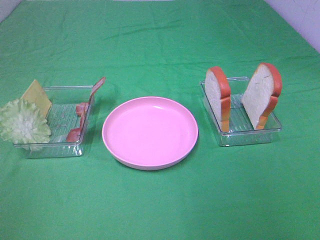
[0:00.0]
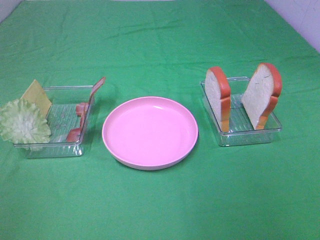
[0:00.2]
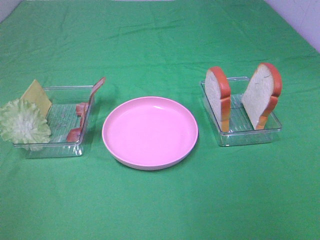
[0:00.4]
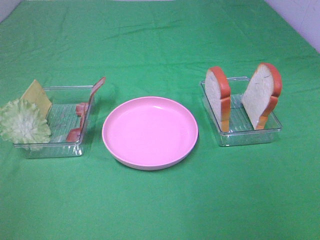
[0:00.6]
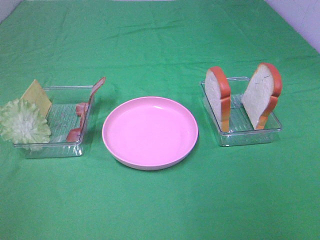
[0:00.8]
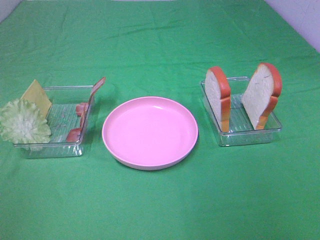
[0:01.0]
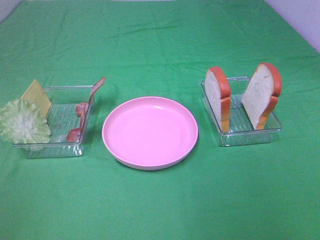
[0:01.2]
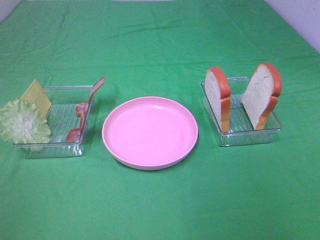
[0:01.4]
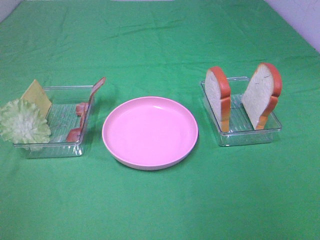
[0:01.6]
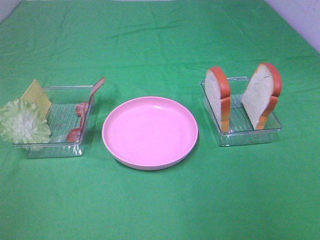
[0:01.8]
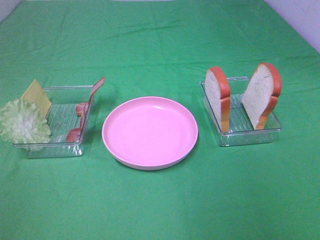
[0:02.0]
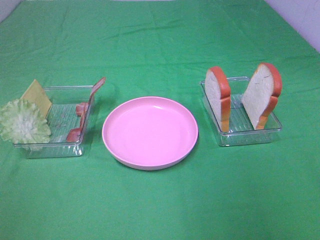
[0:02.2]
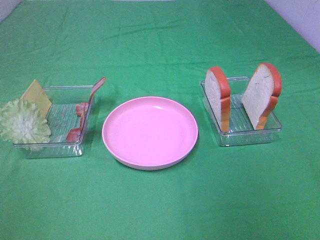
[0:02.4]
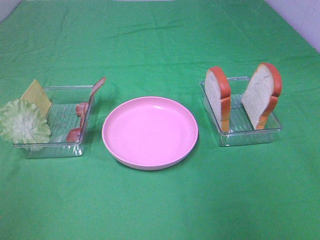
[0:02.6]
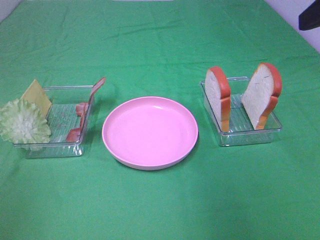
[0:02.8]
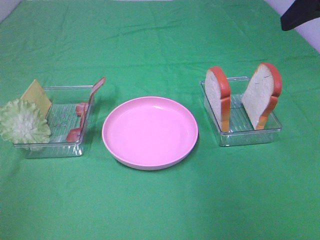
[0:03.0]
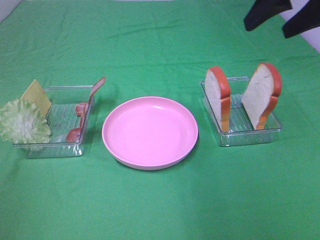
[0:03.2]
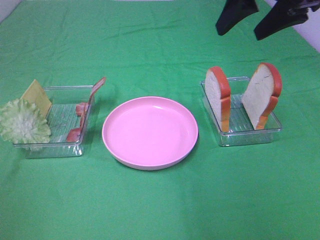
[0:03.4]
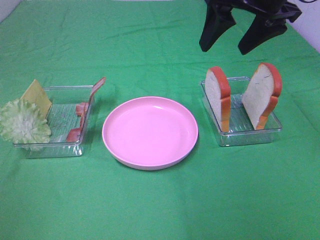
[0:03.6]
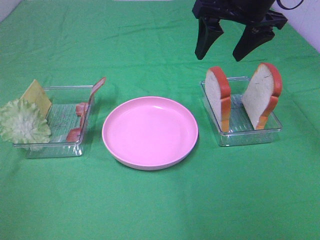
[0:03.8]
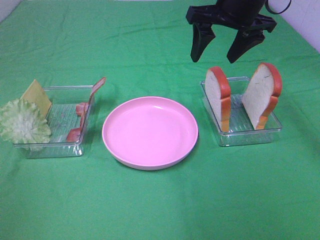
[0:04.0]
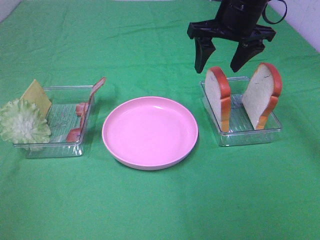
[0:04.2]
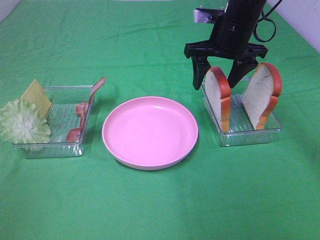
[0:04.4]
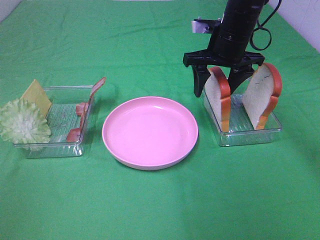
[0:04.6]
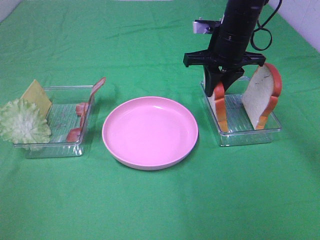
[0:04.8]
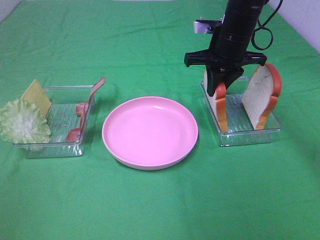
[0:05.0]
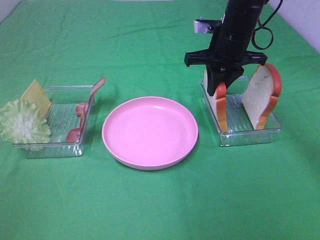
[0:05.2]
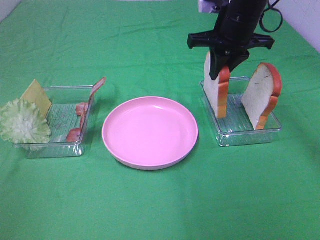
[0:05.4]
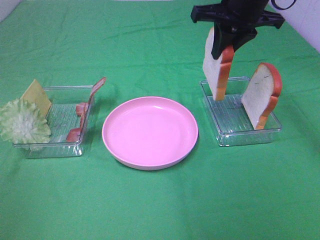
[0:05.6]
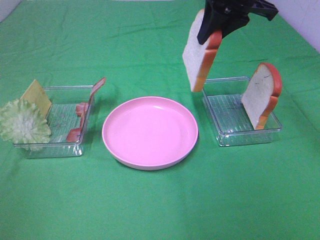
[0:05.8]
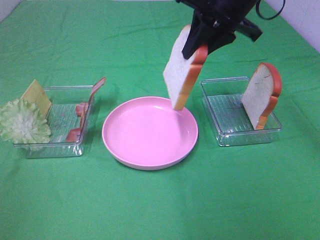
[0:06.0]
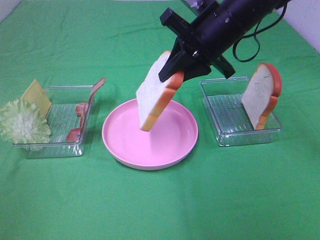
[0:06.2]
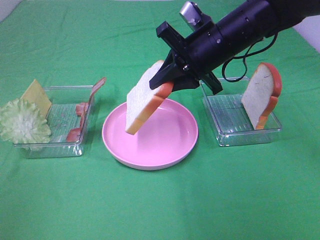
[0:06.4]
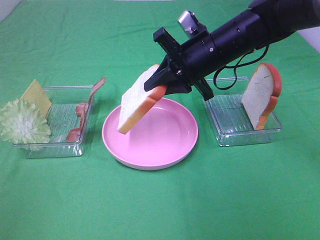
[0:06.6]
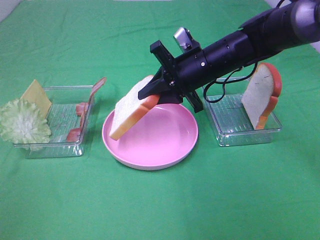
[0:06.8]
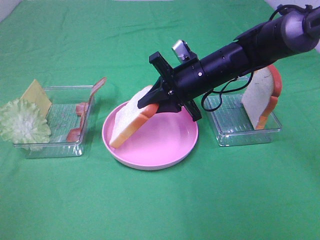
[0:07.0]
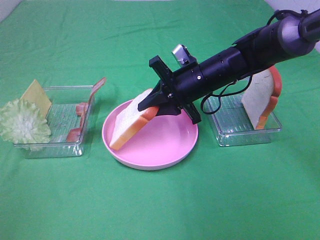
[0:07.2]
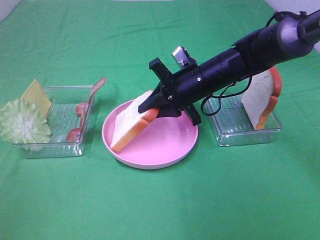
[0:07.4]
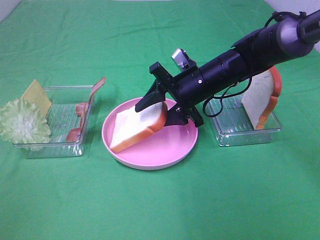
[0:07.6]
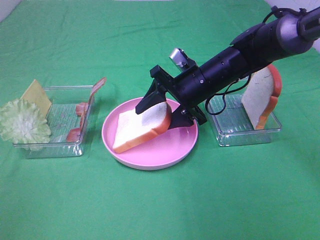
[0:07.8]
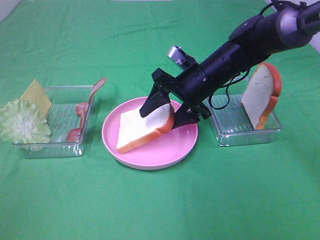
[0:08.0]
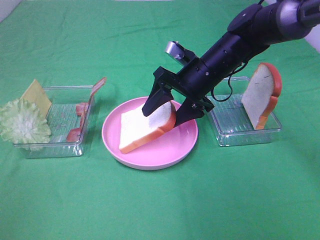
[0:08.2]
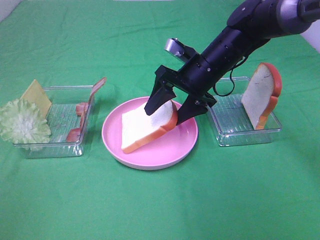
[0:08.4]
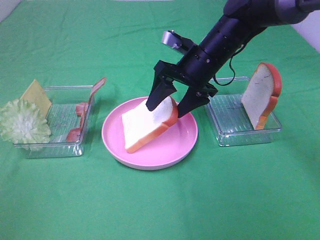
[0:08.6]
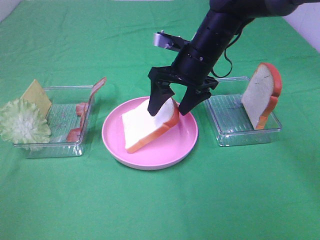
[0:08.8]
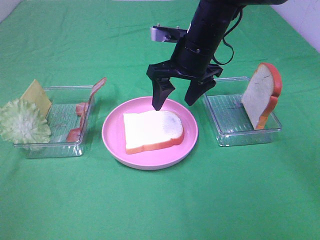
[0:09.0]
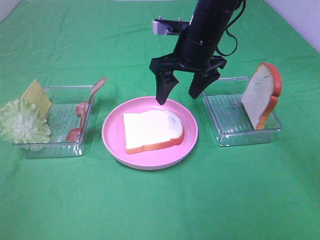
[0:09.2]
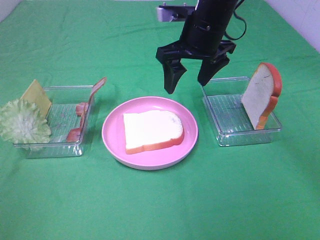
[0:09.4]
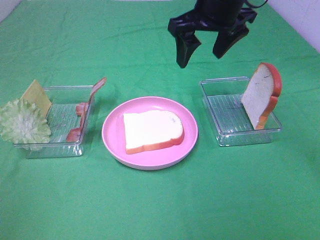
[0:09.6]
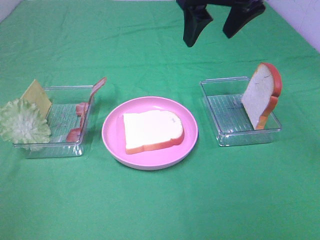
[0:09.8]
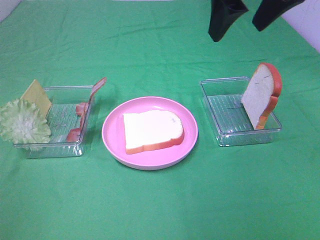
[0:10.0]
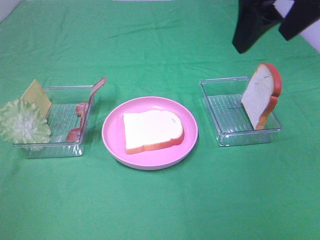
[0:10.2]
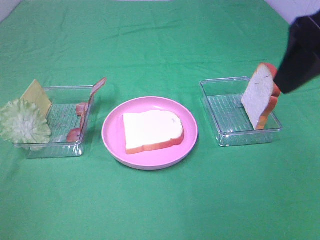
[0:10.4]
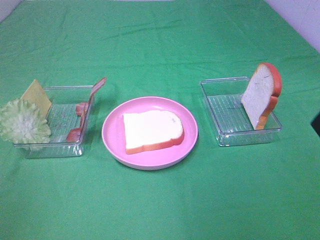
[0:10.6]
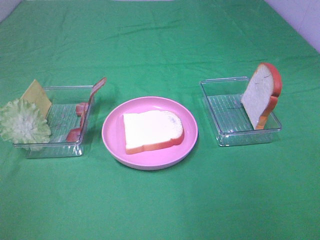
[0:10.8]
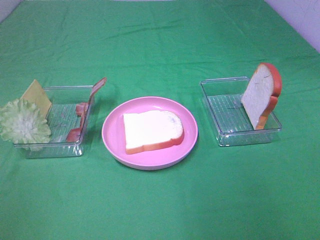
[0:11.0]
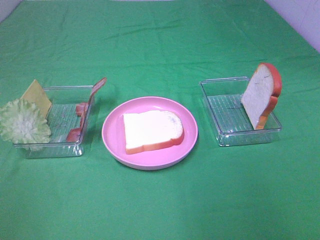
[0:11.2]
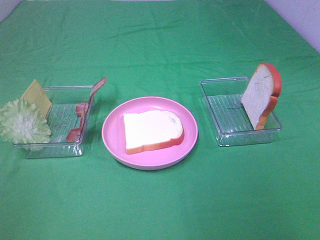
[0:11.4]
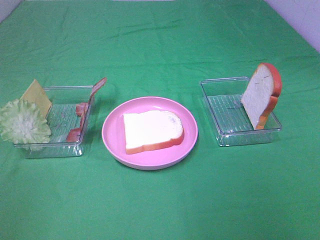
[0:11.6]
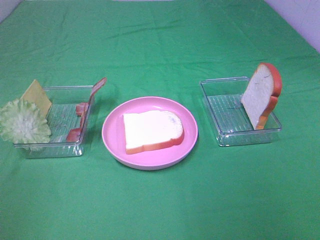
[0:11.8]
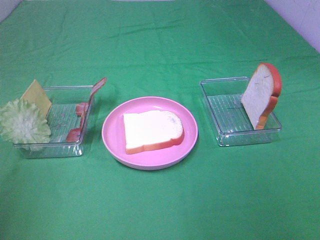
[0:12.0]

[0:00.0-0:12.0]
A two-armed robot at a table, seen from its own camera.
Task of the whole recording: Make sandwiches.
Step, 0:00.0 to 0:04.8: Right hand:grab the bread slice.
Step, 0:05.0 to 0:09.0: Right hand:place the bread slice on the plate.
0:00.0 to 0:01.6: Both grippers stay about where they are.
0:01.6 to 0:03.0: The right gripper moves forward, some 30 cm.
0:03.0 to 0:04.4: The right gripper goes some 25 cm forward, downward and to the left.
0:04.4 to 0:06.0: The right gripper is displaced upward by approximately 5 cm, and closes.
0:06.0 to 0:07.6: The right gripper goes about 15 cm downward, and opens its fingers.
0:07.6 to 0:09.0: The right gripper shifts roughly 10 cm upward.
0:09.0 to 0:10.4: The right gripper shifts roughly 30 cm backward, upward and to the right.
0:10.4 to 0:12.0: The right gripper moves backward, to the right and downward, about 20 cm; the left gripper moves forward, about 10 cm.

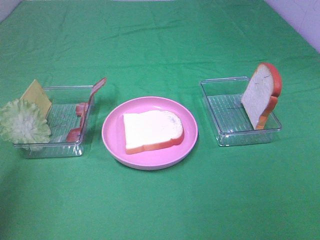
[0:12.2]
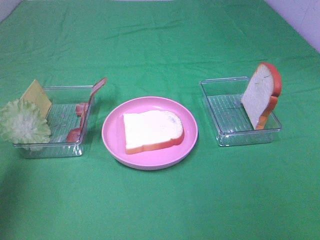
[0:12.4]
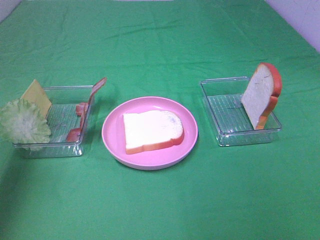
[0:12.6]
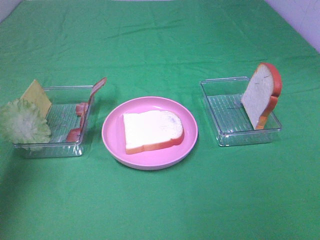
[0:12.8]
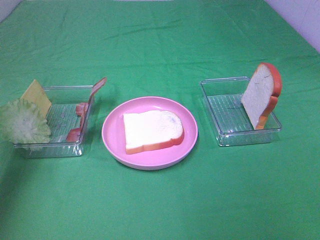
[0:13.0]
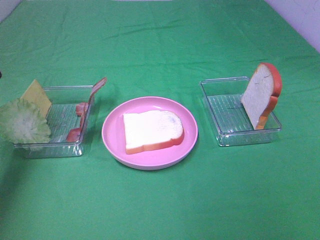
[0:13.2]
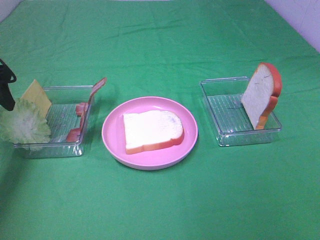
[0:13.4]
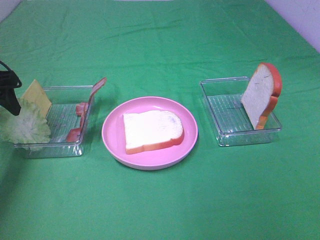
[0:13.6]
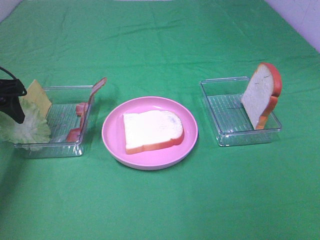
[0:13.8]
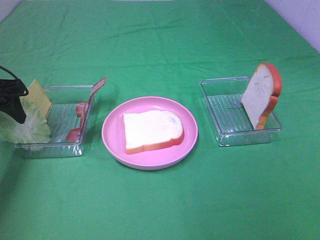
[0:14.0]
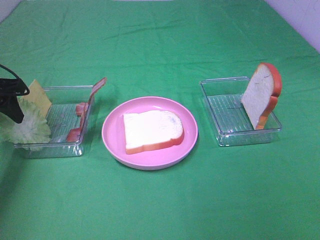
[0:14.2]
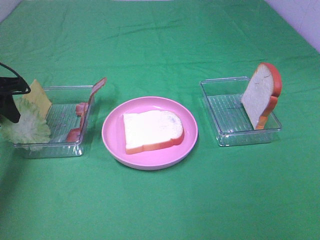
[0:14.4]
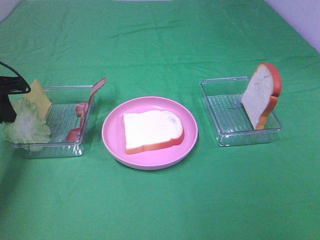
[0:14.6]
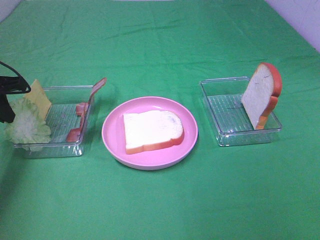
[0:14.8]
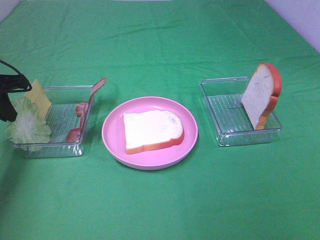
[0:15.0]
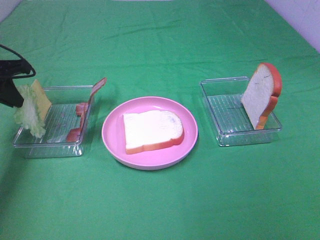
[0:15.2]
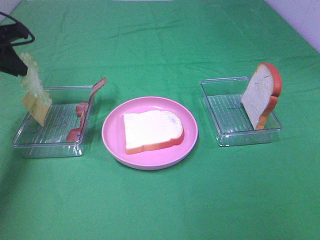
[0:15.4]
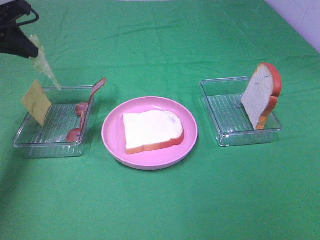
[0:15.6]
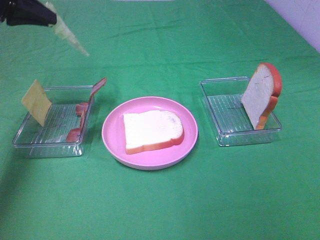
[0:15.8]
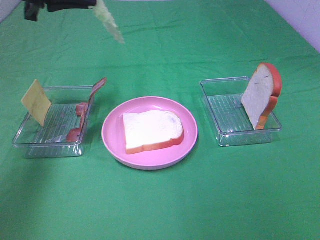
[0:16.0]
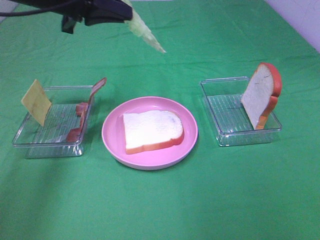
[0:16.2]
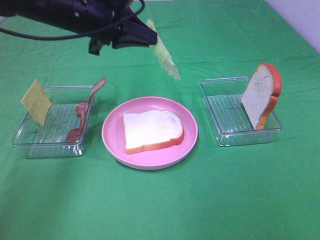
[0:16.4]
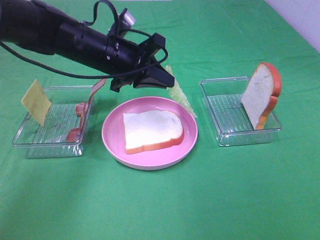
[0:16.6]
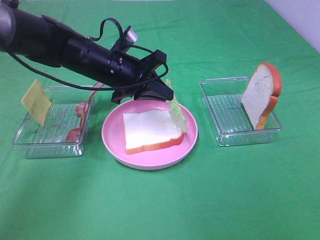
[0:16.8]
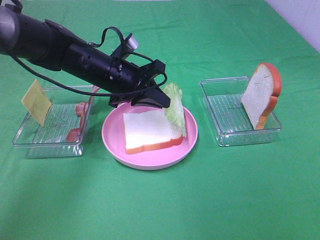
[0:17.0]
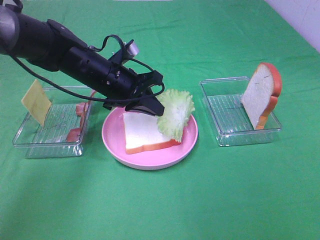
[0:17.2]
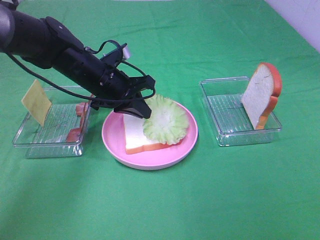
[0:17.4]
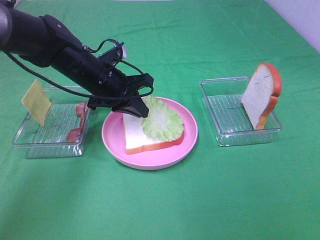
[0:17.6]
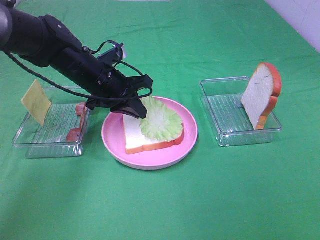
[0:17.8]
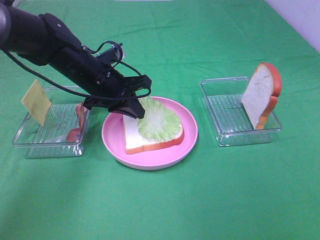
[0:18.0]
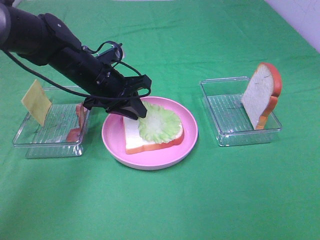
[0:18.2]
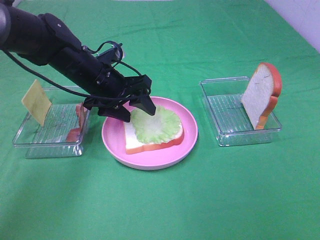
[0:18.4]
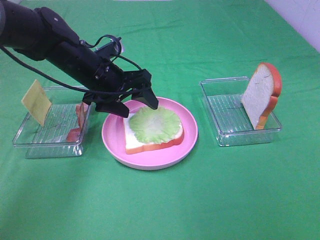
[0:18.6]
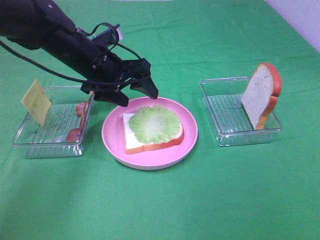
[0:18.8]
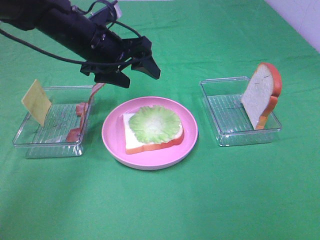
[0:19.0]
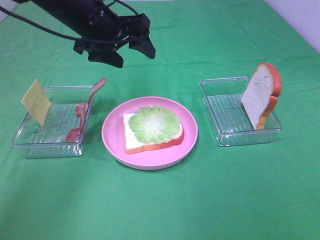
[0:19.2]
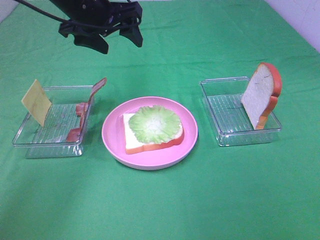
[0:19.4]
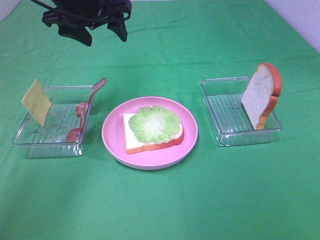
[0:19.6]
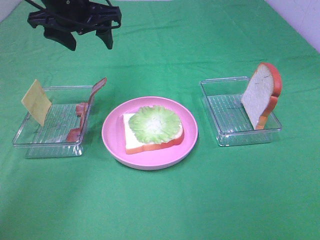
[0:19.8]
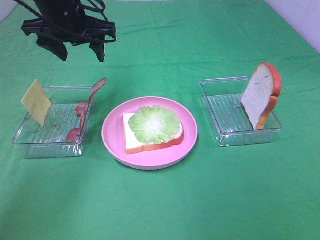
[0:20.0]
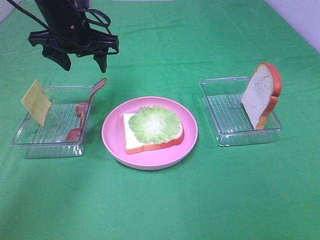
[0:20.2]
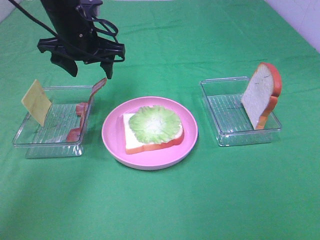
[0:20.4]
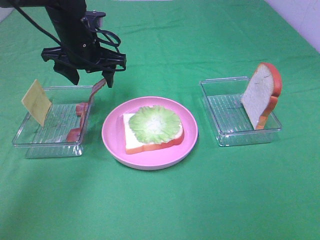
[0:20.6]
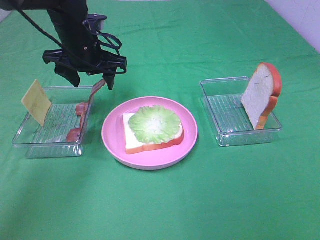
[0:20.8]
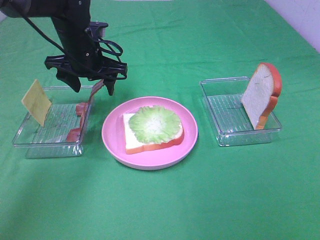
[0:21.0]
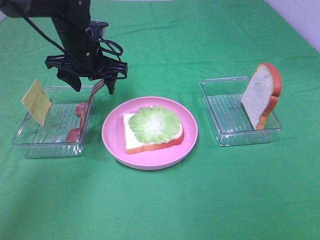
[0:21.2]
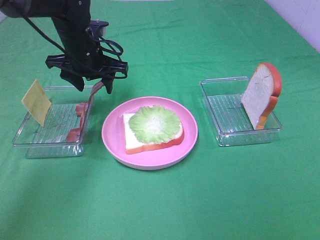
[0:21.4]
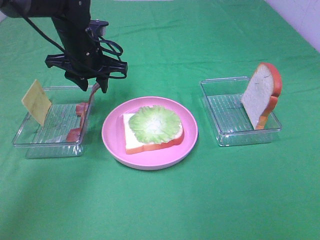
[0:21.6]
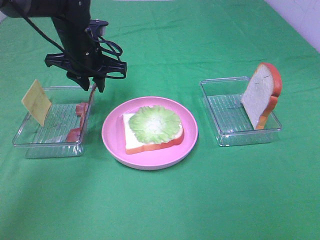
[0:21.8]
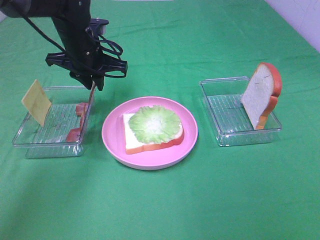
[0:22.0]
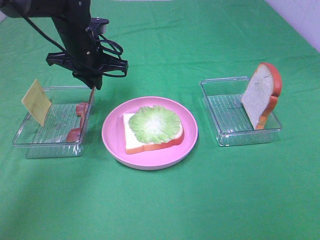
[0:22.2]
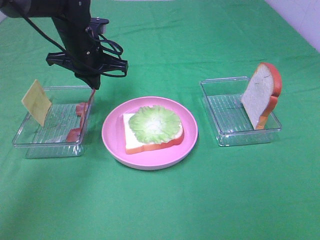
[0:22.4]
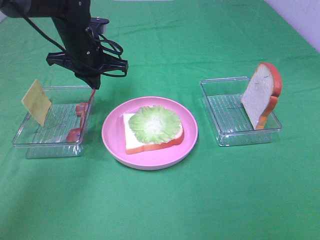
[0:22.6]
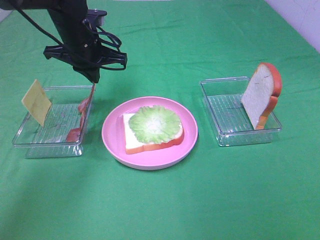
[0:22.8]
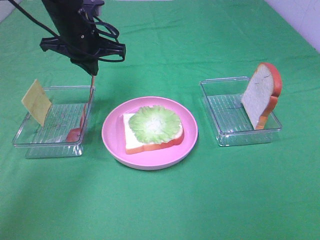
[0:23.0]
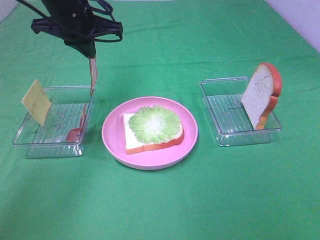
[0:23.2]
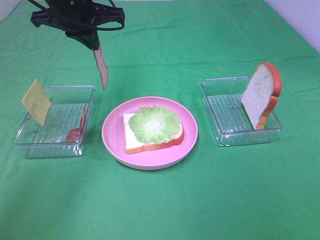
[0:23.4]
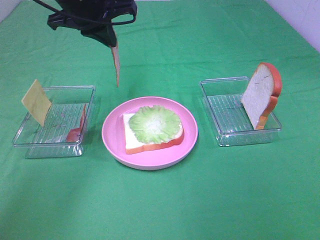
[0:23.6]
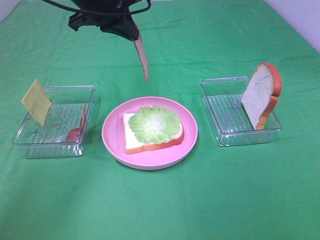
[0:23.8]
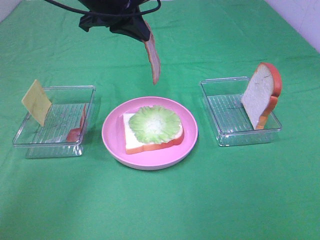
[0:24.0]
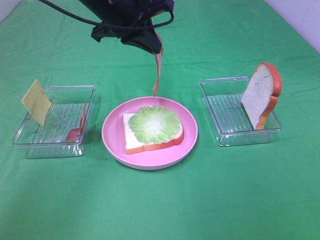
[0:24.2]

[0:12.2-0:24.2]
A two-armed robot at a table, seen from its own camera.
Task of the whole recording: Make sandwiches.
Step, 0:15.2 to 0:18.6: Left hand:place the lettuce slice on the bread slice.
Step, 0:18.8 to 0:22.4: Left hand:grab the bacon.
0:12.2 to 0:13.8: The left gripper shifts roughly 25 cm forward and downward.
0:13.8 to 0:15.2: The left gripper closes.
0:15.2 to 0:16.6: The left gripper is displaced to the right by roughly 20 cm.
0:16.6 to 0:18.2: The grippers make only small movements.
0:18.2 to 0:19.8: The left gripper shifts some 15 cm upward, and opens its fingers.
0:19.8 to 0:21.2: The left gripper heads downward, covering roughly 10 cm.
0:21.2 to 0:22.6: The left gripper closes its fingers.
0:22.6 to 0:24.2: The left gripper shifts roughly 10 cm upward and to the right.
